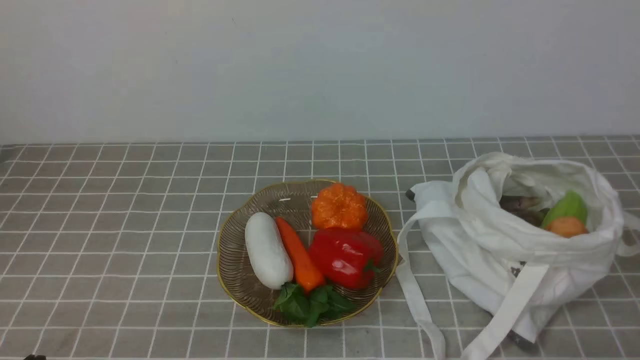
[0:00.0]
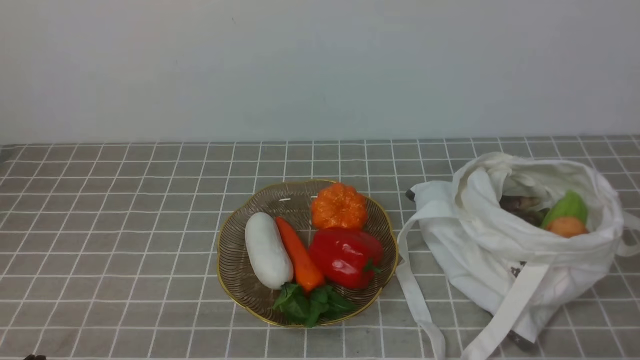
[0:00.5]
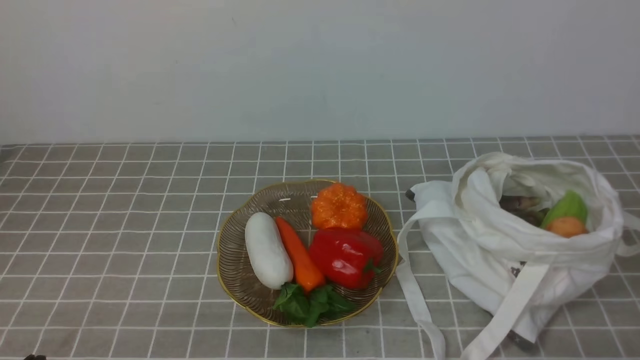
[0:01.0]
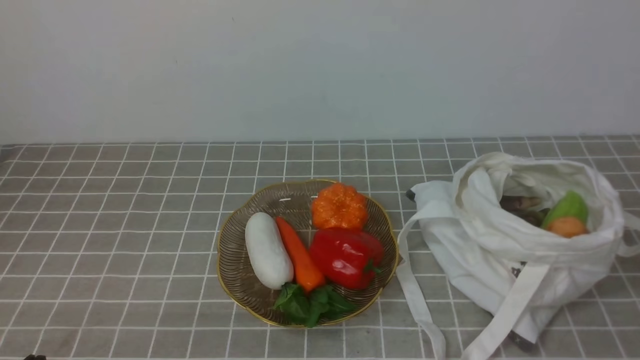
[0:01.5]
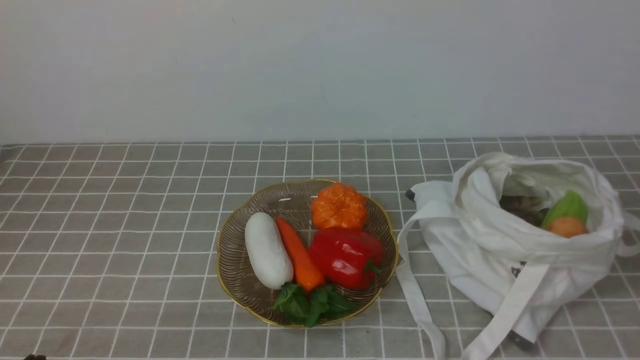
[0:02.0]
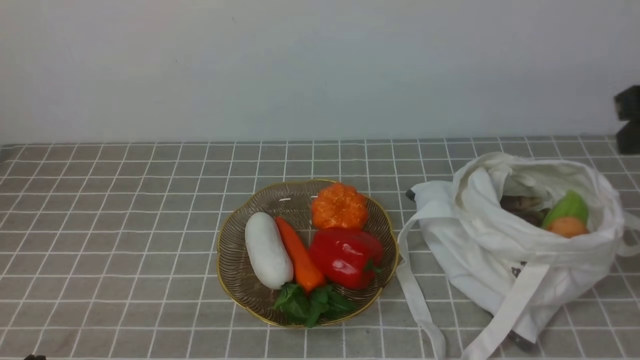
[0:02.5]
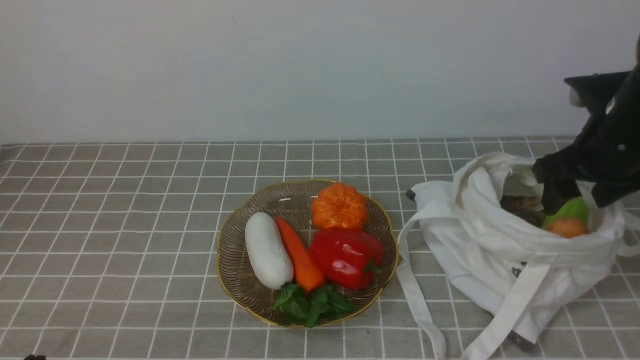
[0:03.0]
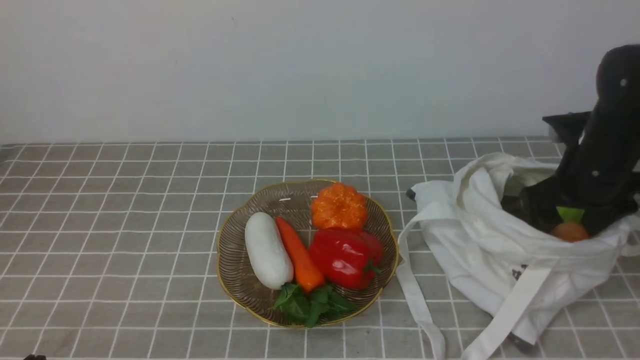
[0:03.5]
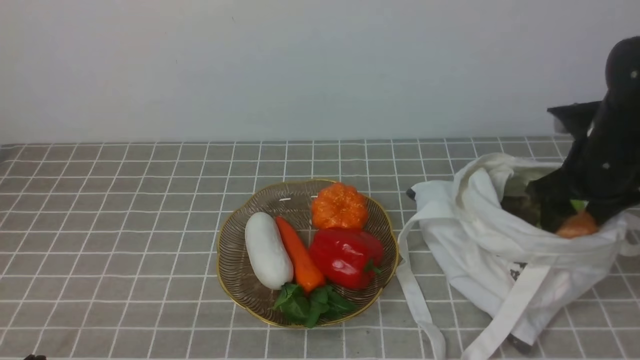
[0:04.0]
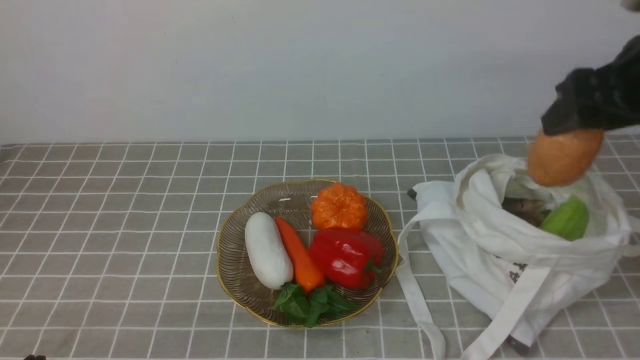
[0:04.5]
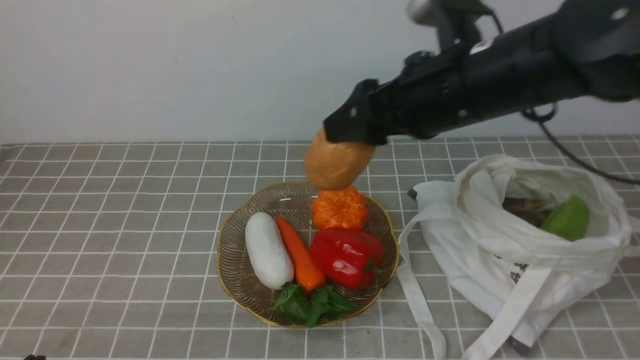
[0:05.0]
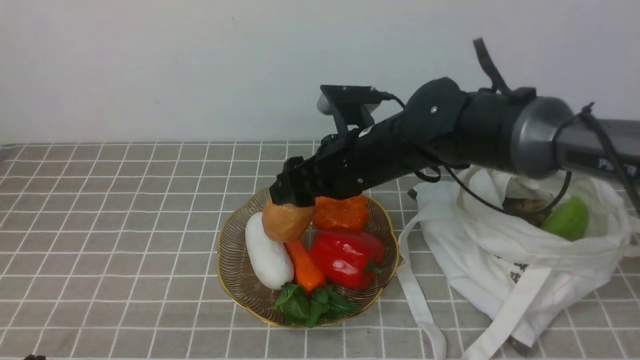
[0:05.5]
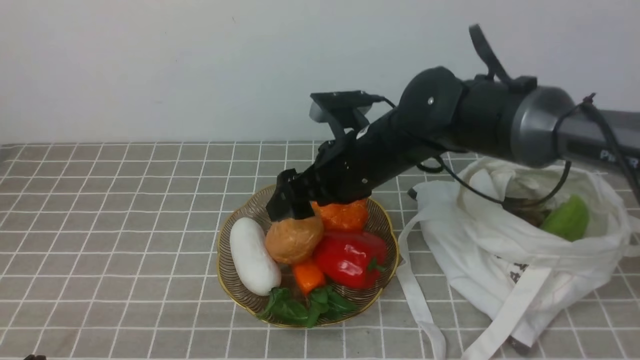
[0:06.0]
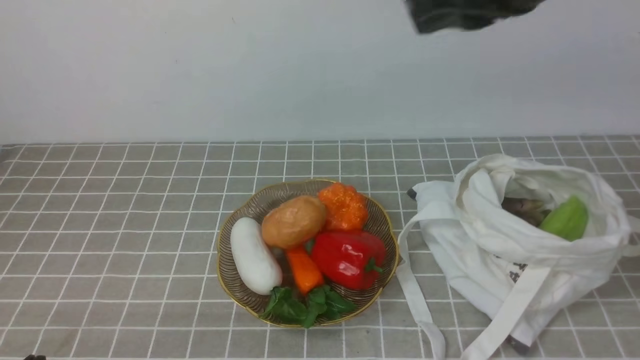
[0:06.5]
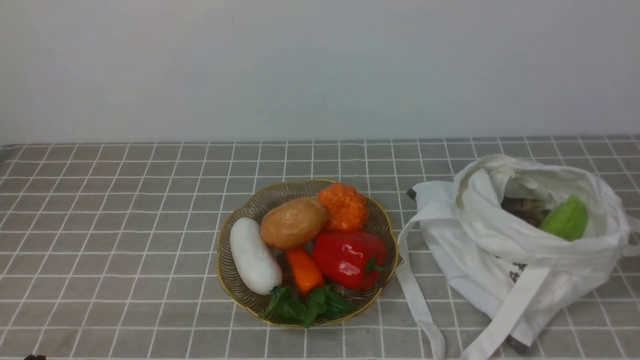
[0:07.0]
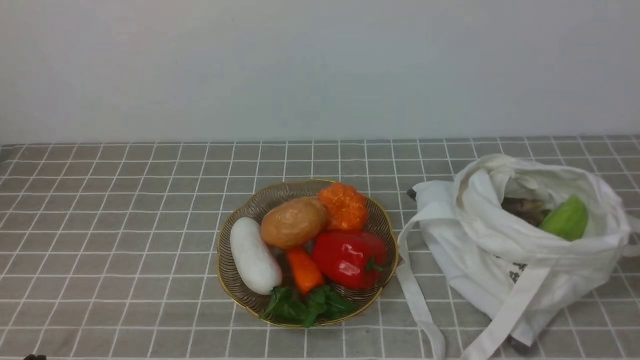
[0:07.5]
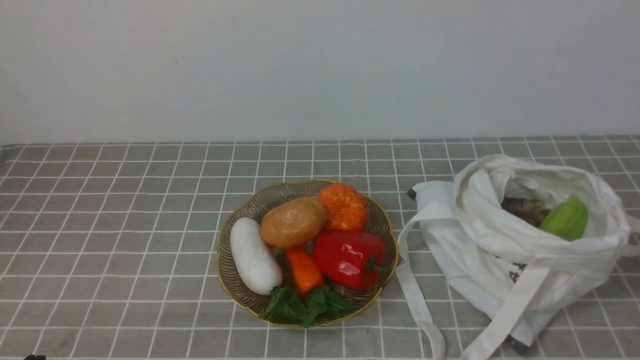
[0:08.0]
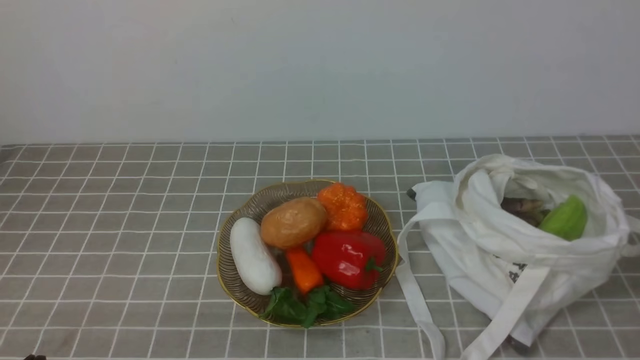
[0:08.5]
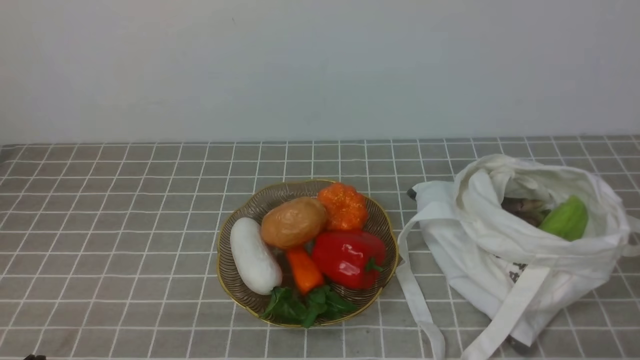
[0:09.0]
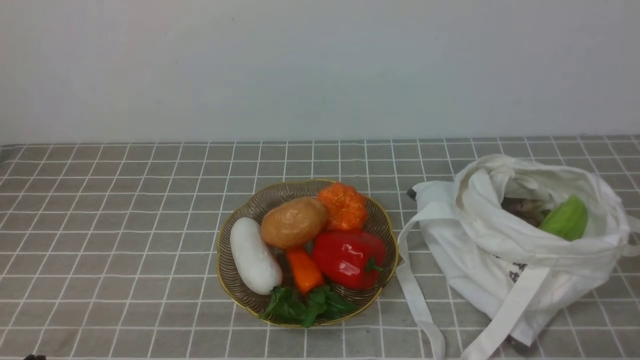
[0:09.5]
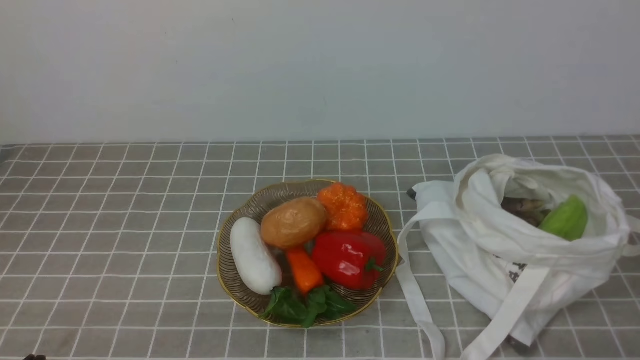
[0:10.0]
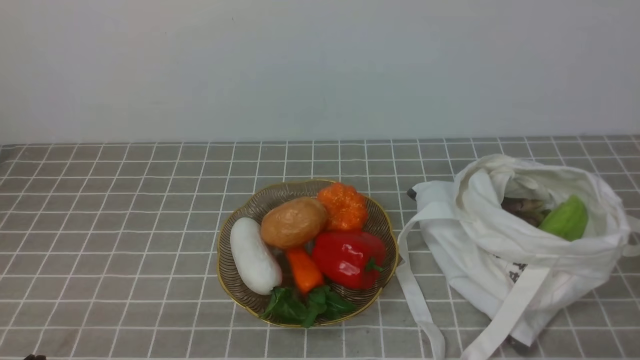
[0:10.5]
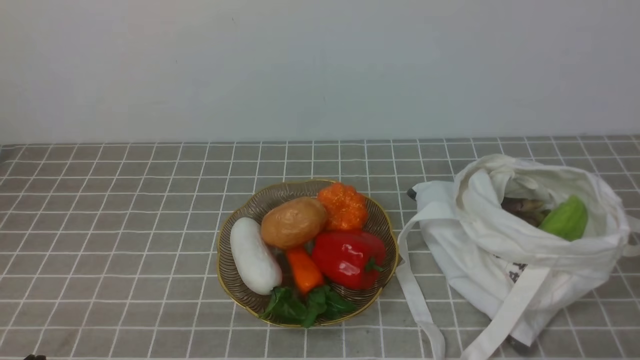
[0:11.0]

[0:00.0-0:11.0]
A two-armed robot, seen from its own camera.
Task of the whole recording: take vegetables from bag on grey coffee tablecloth place on plate.
Step, 0:00.0 to 0:03.5: Grasp the potato with right gripper.
Step, 0:04.0 to 0:06.0: Place the potato on the plate with right gripper.
0:02.0 to 0:03.5: The right gripper moves forward and downward, about 30 cm, and opens up.
0:03.5 to 0:05.5: The right gripper moves to the left, some 25 cm.
0:05.5 to 0:07.5: The right gripper travels backward and to the right by some 40 cm, and closes its fingers.
0:09.0 to 0:11.0: The two grippers keep their place.
